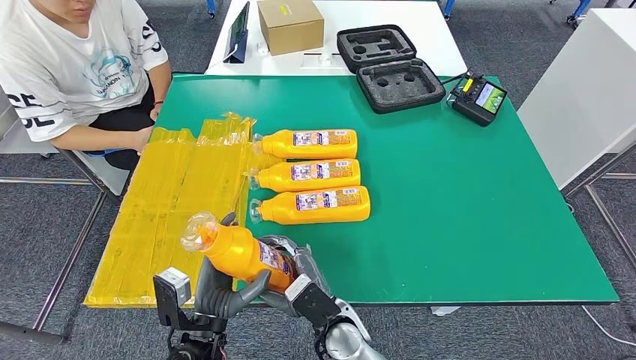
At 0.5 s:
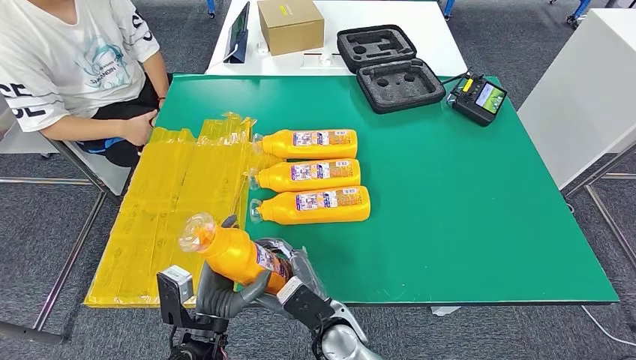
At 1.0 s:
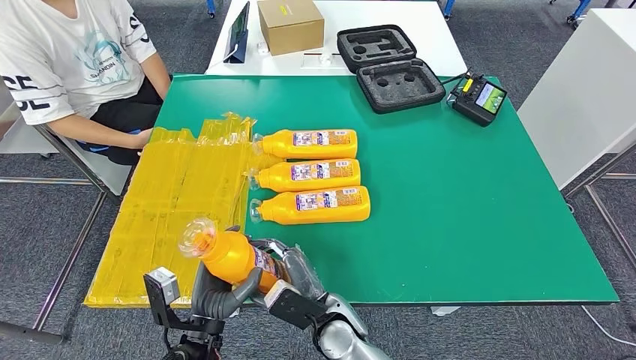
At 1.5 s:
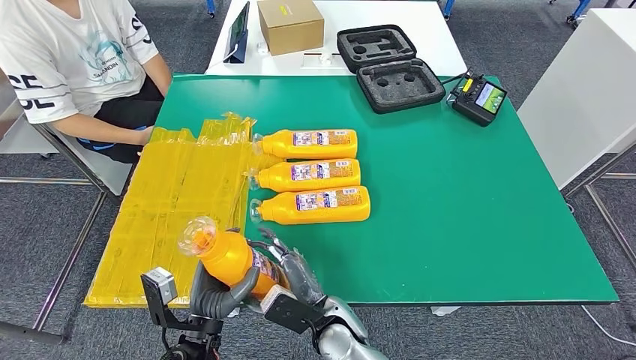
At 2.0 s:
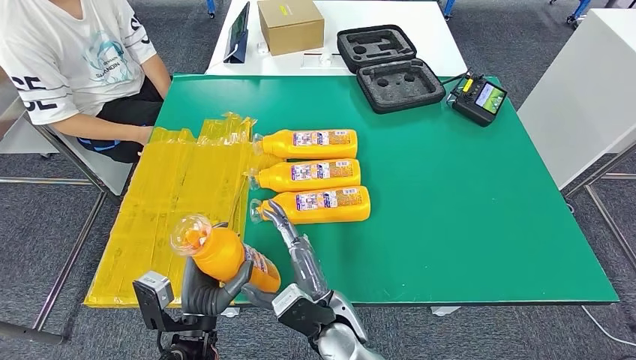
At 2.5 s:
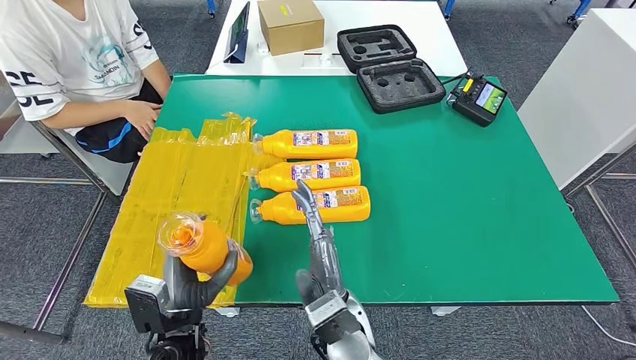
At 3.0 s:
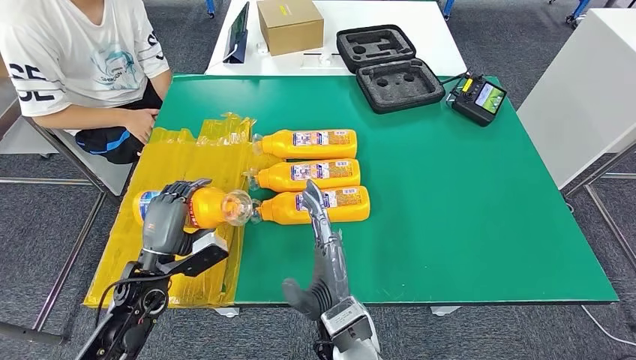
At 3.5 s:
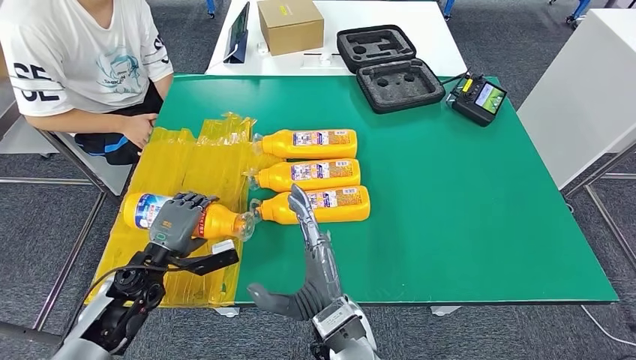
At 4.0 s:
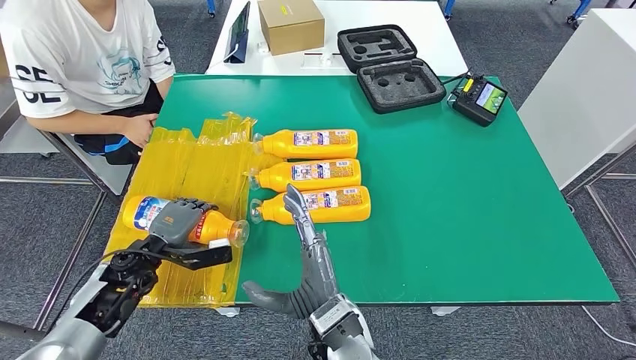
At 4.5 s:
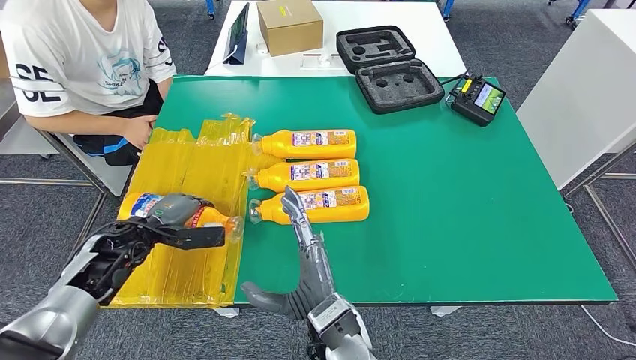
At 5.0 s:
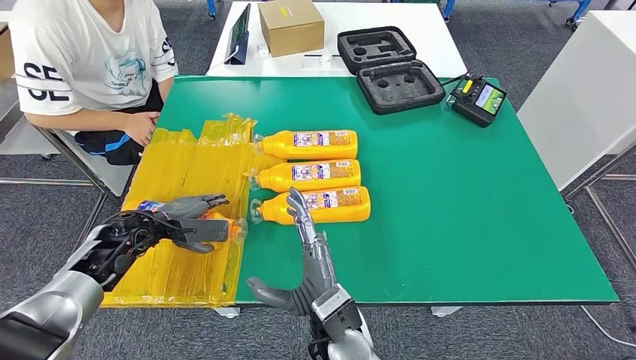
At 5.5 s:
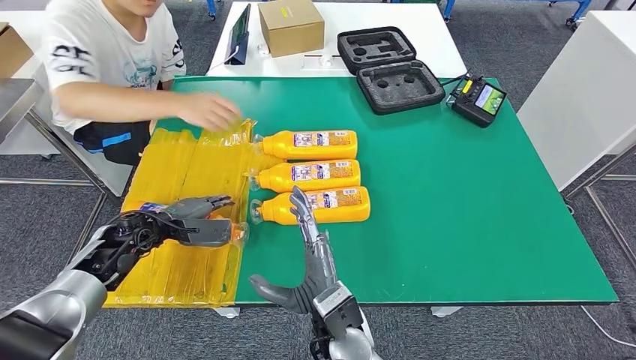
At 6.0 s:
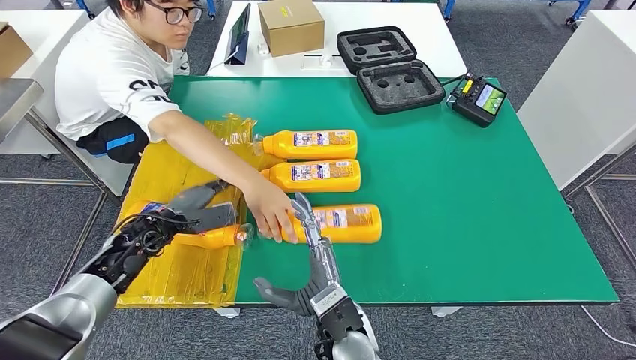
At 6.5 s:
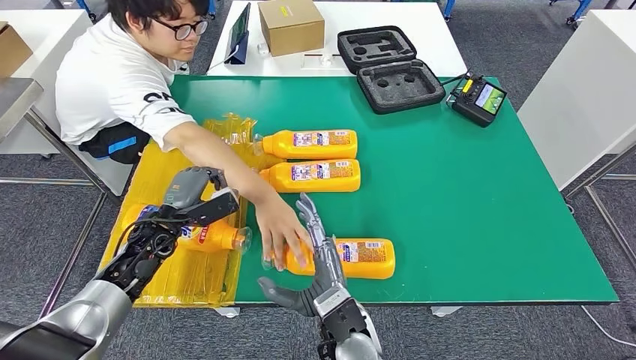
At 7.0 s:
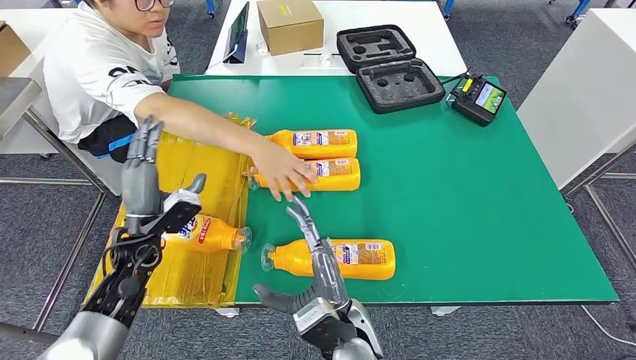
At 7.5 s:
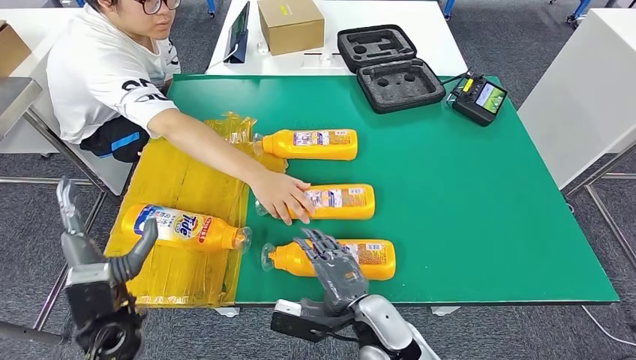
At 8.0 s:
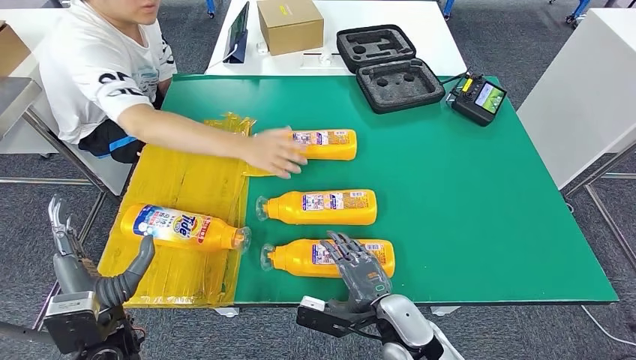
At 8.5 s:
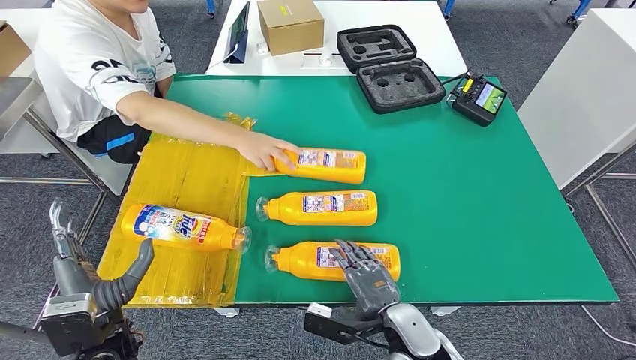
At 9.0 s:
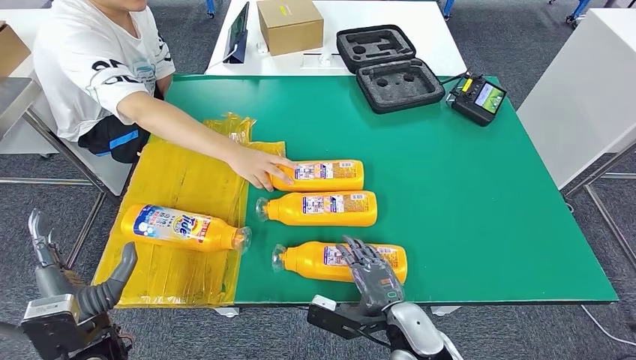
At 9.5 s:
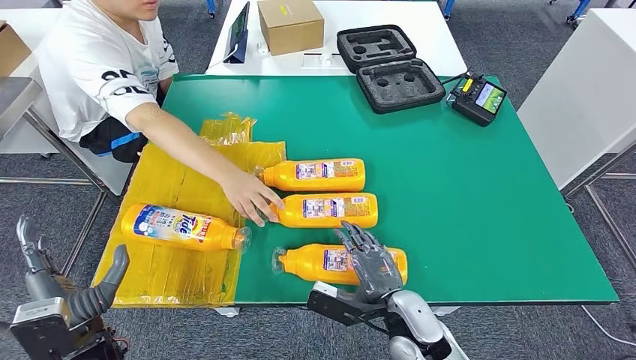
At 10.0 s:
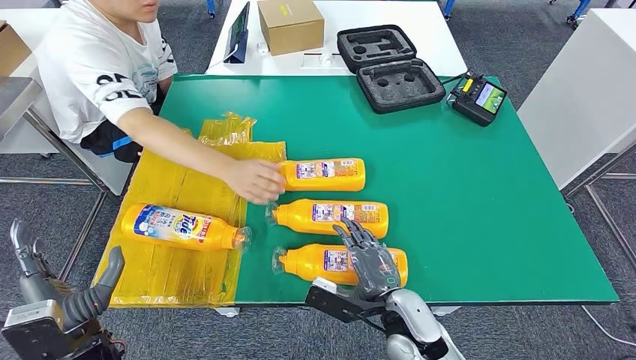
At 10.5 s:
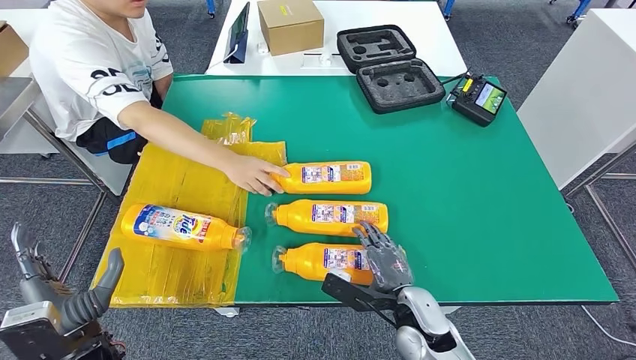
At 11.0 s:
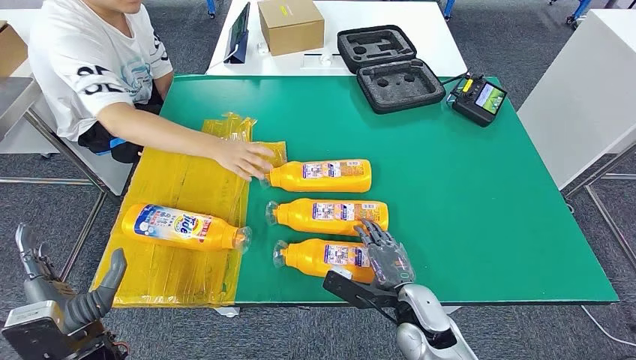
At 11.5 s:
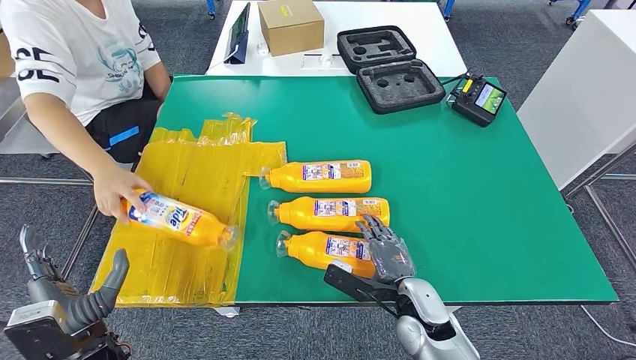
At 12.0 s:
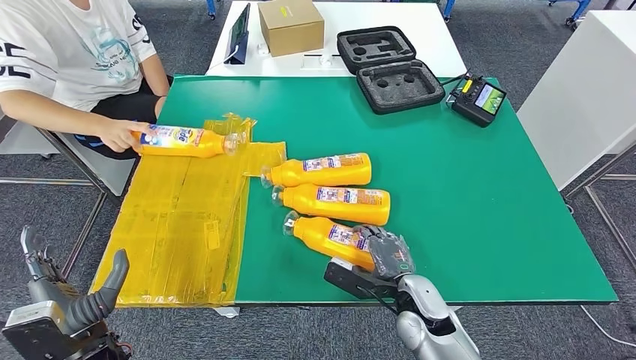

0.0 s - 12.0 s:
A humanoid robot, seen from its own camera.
Step, 0.0 s - 3.5 s: Flip the fast-moving consumer goods bottle to the front side.
0.0 s - 2.0 s: The hands move only a little.
2.0 s - 4.0 s: The left hand travels forward and to the left by some 20 cm.
8.0 s - 10.0 s: There are only small adjustments of the hands.

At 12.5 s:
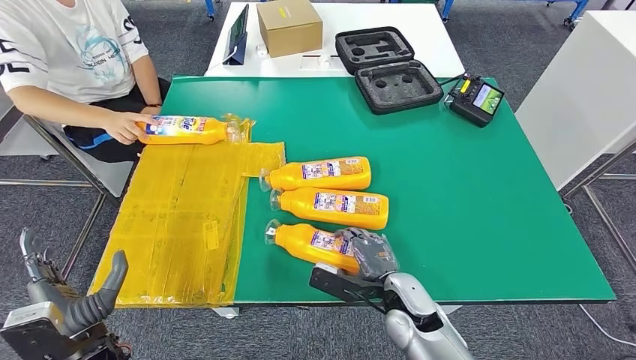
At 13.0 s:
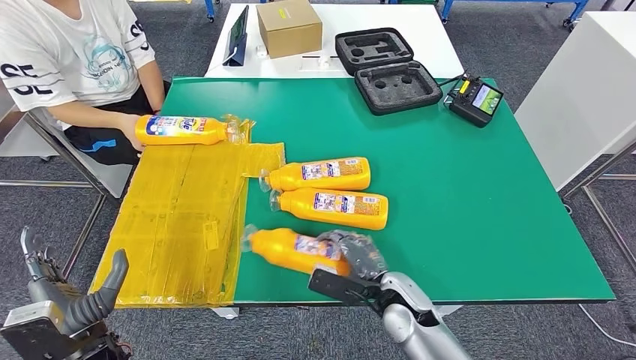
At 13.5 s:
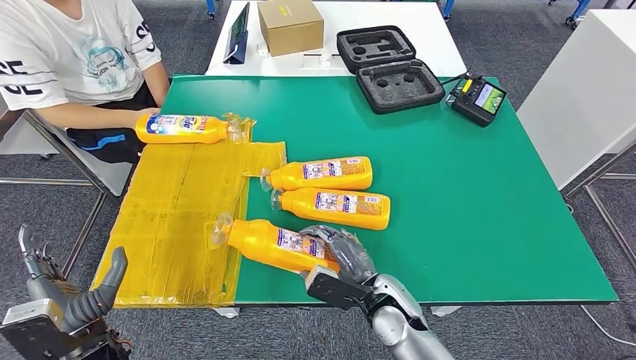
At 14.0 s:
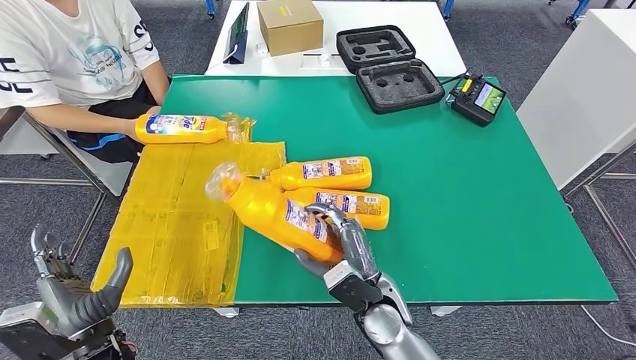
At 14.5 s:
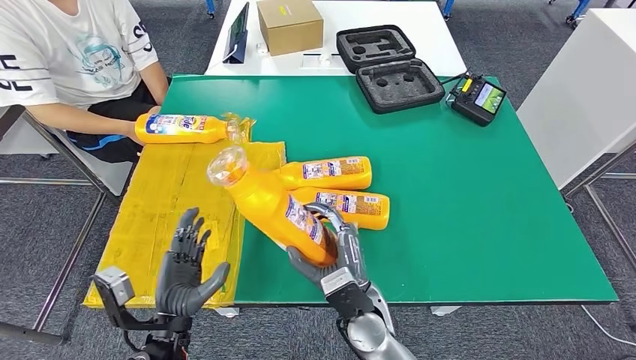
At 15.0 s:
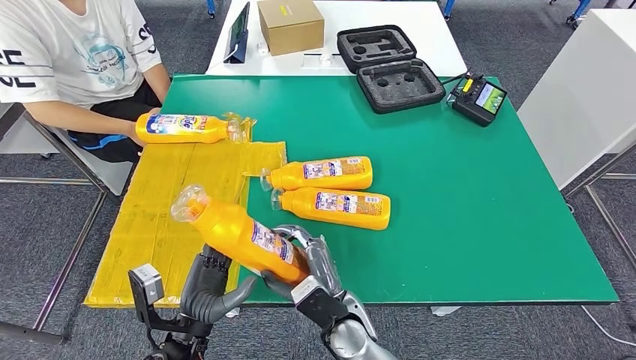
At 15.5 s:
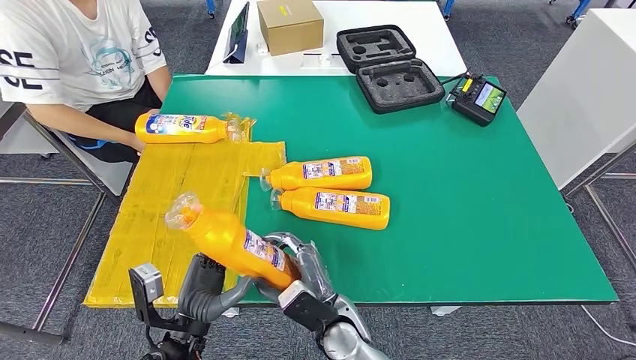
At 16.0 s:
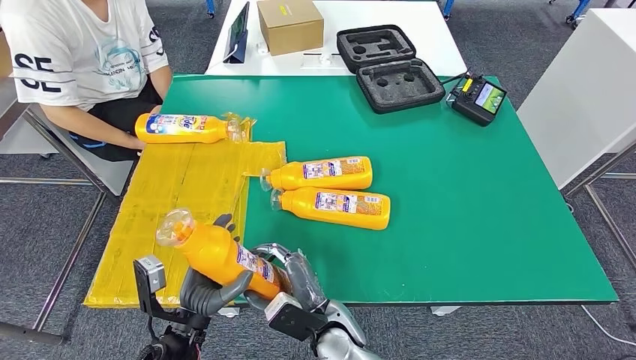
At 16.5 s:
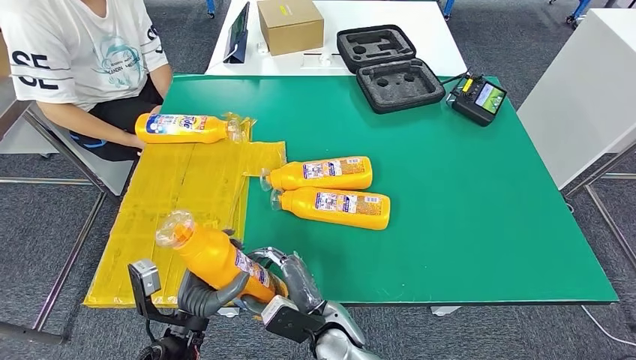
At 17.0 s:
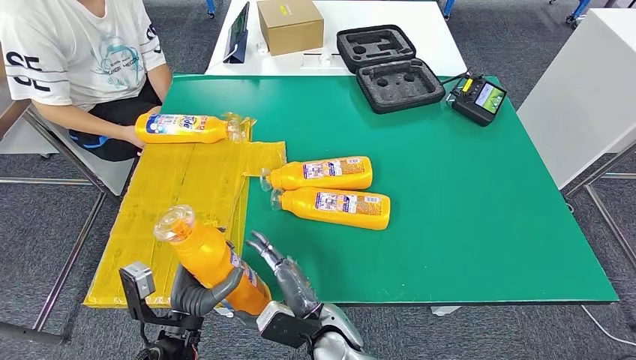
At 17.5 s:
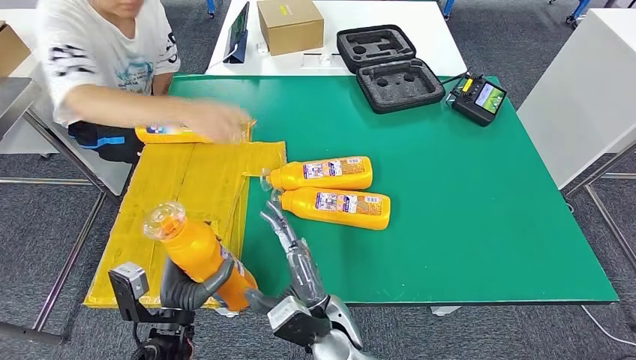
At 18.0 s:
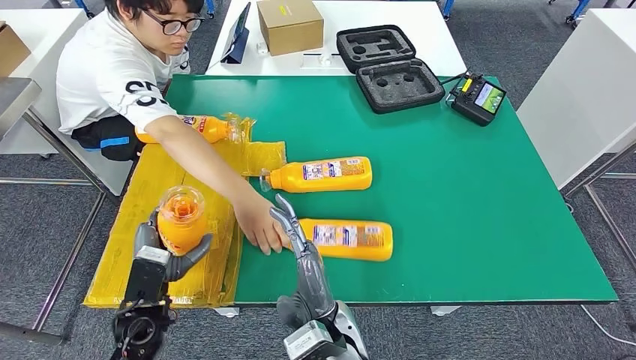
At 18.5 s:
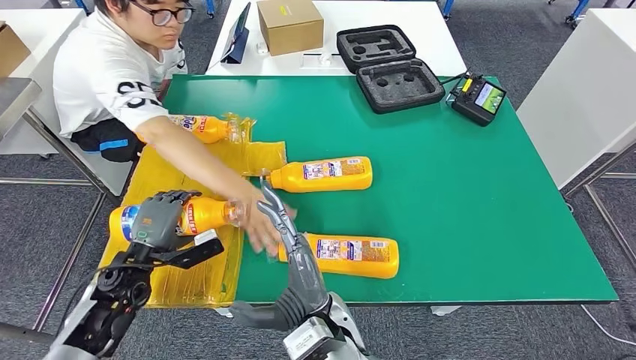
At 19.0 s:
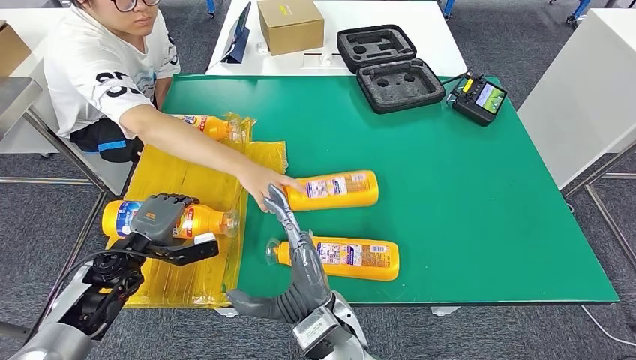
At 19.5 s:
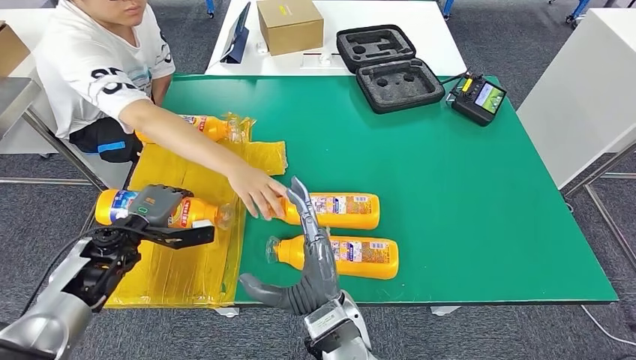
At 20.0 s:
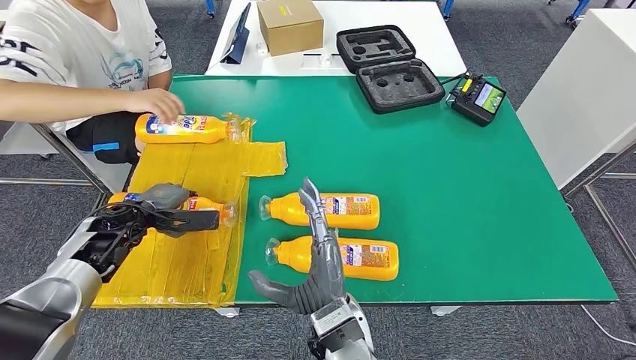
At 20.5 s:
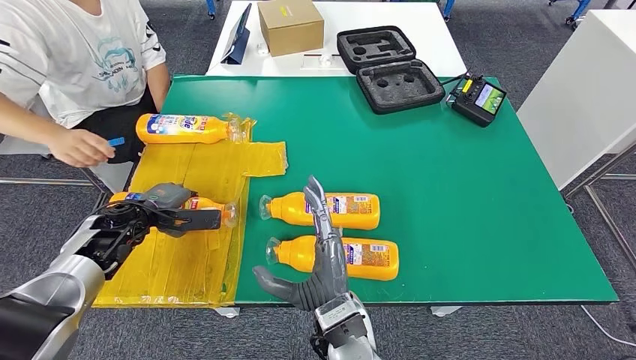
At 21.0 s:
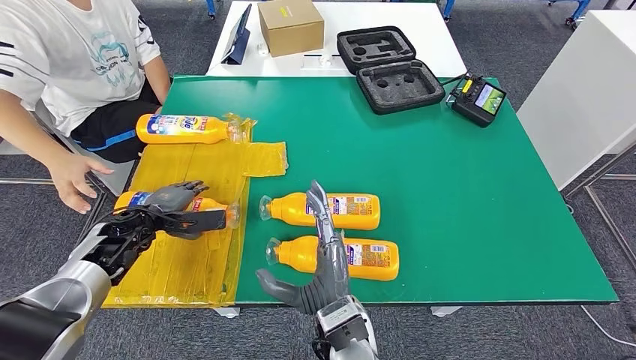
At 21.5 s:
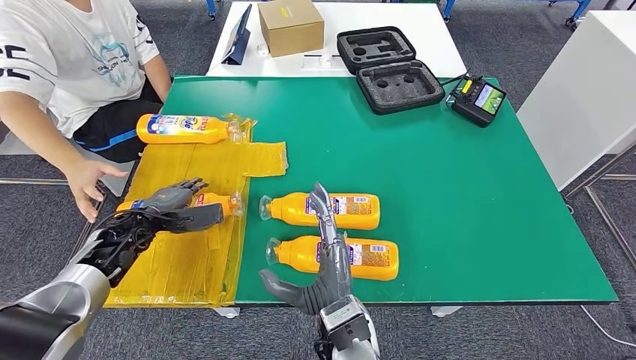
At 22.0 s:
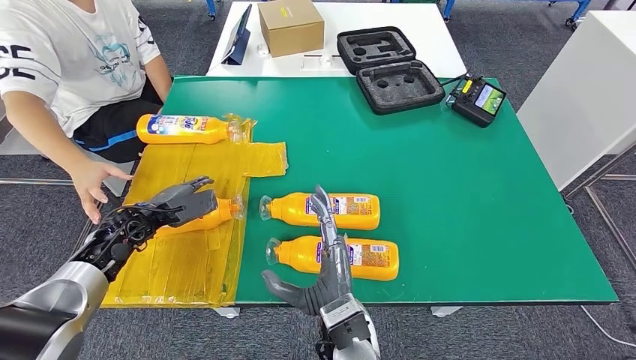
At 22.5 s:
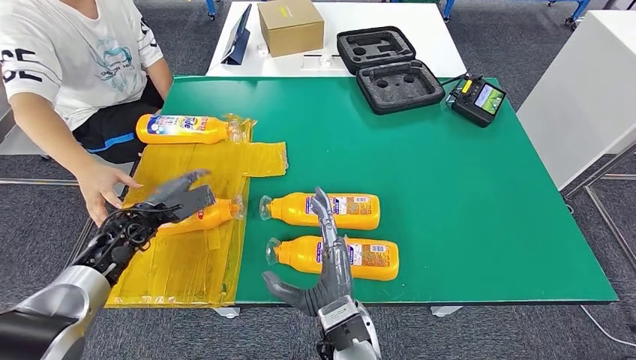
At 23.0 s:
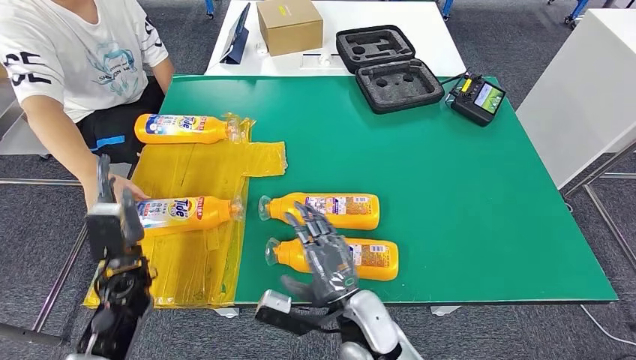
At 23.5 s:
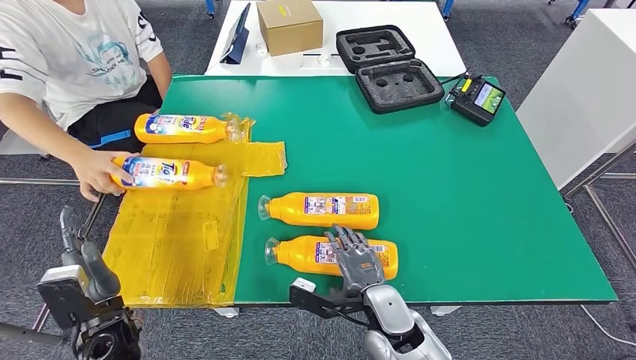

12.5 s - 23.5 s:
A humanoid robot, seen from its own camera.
Step, 14.5 s - 18.5 s: Flip the fast-moving consumer goods bottle to the front side.
14.5 s - 16.0 s: The right hand goes approximately 5 cm to the left.
20.0 s - 21.5 s: The hands stay close to where they were, moving slightly.
21.5 s - 23.5 s: The right hand is displaced to the right by about 10 cm; the left hand travels backward by approximately 20 cm.
